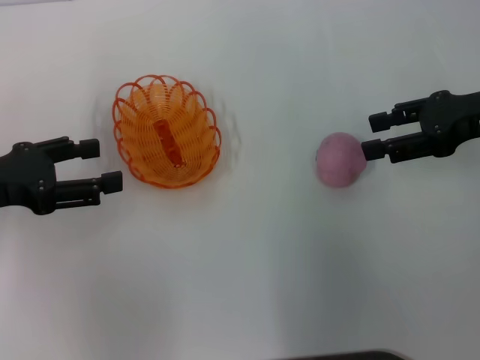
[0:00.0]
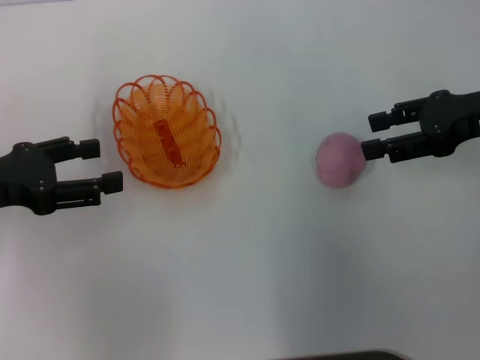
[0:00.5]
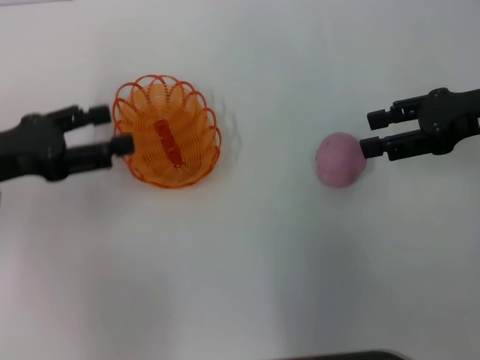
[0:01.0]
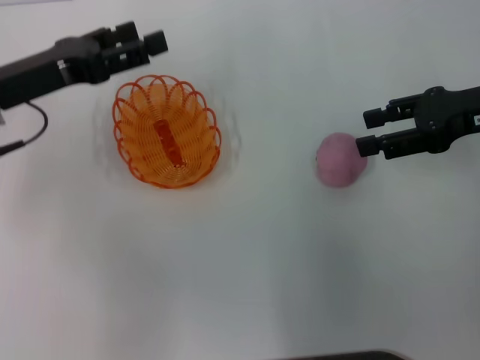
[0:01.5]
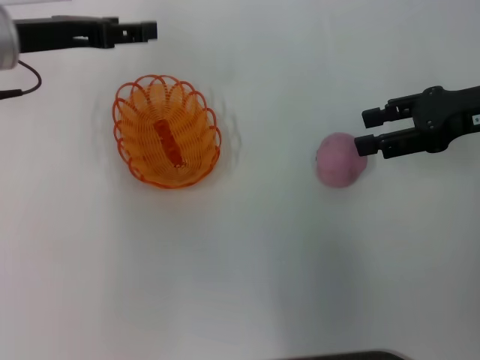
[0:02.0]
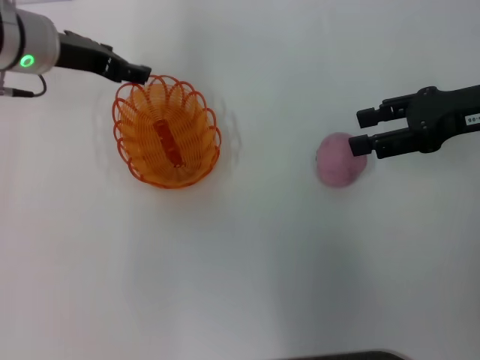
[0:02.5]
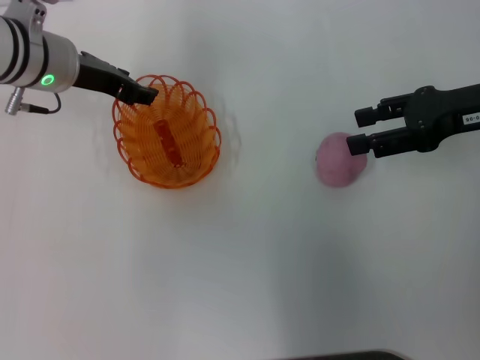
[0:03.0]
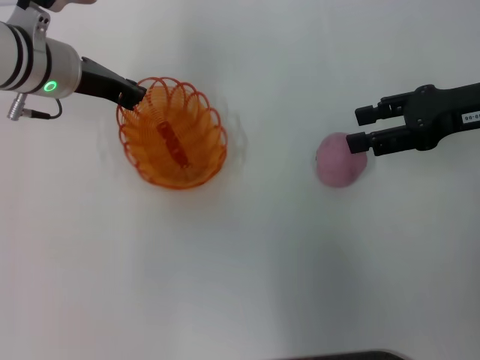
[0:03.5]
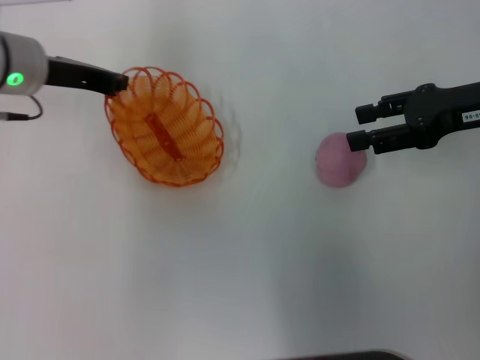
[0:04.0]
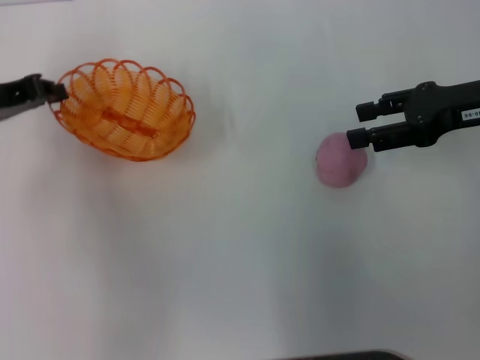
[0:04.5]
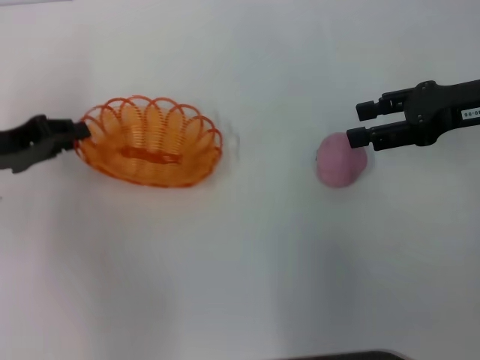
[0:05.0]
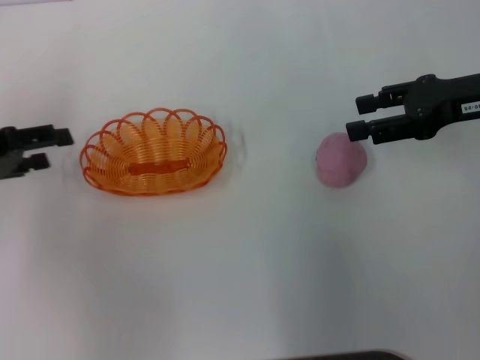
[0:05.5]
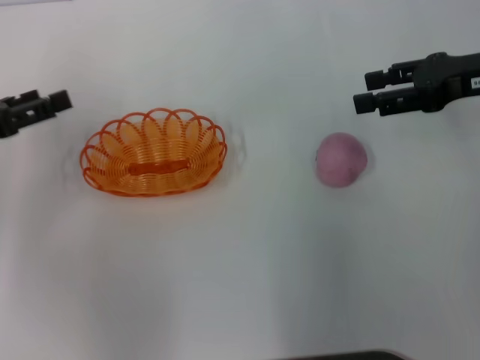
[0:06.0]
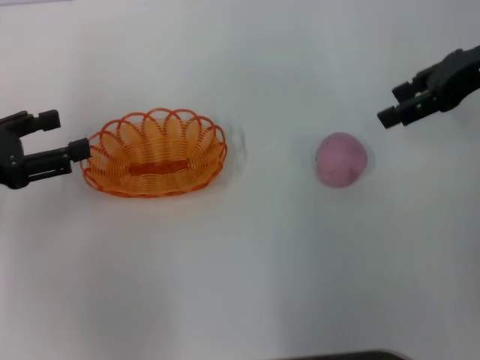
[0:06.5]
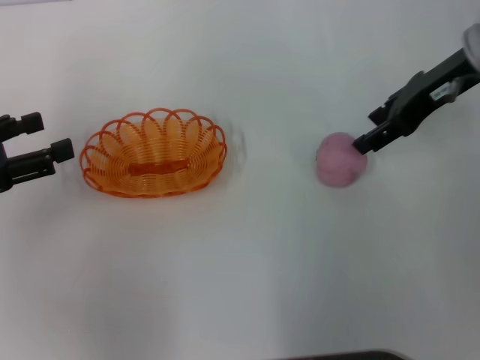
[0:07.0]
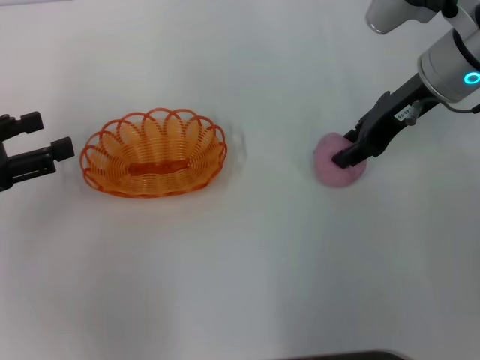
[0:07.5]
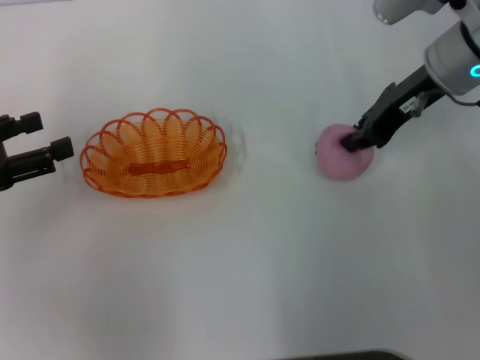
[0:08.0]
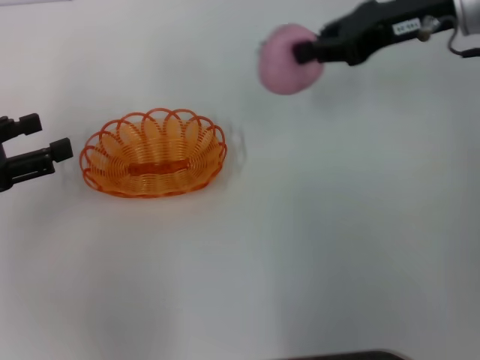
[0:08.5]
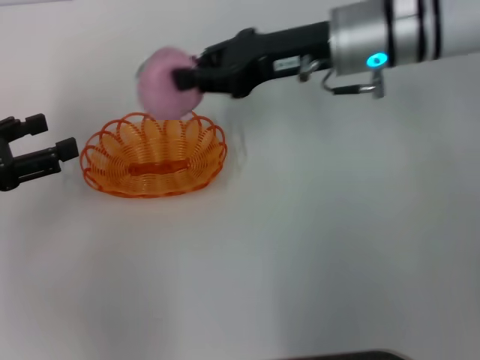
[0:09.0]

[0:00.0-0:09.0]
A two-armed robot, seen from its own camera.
Step, 0:00.0 to 0:04.0: Pick up the basket with the left gripper.
Step, 0:04.5 to 0:05.5: Place the basket in the center of view with the left gripper.
Step, 0:06.0 to 0:08.5: Pick up the peach with the right gripper.
0:00.0 to 0:02.0: The left gripper travels forward and to the right by about 15 cm.
0:02.0 to 0:04.5: The left gripper goes some 5 cm to the left, and closes up.
0:04.5 to 0:07.0: The left gripper moves backward, roughly 10 cm, and opens; the right gripper moves to the left, some 5 cm.
0:07.0 to 0:09.0: The right gripper shifts about 10 cm to the left, and closes its fingers.

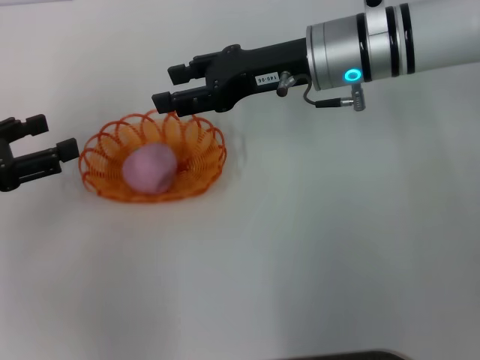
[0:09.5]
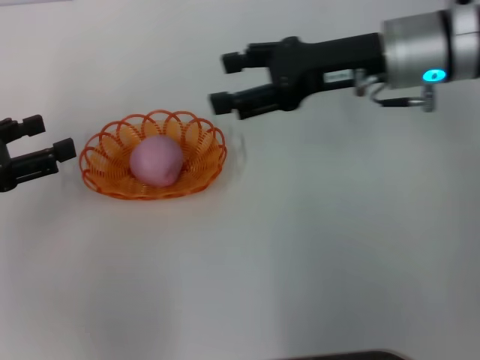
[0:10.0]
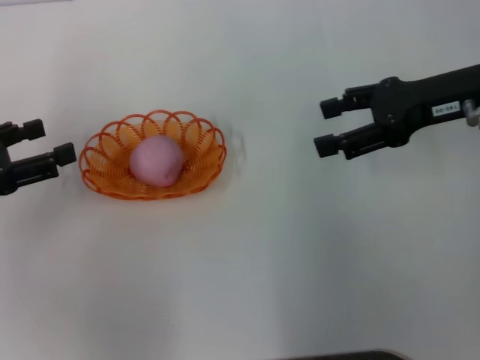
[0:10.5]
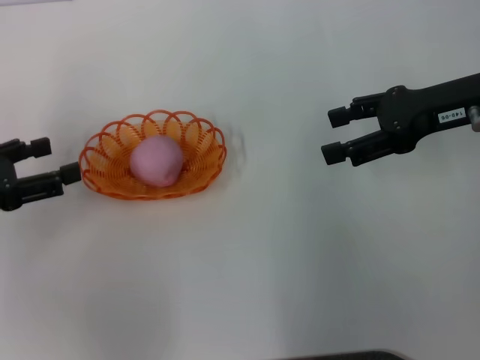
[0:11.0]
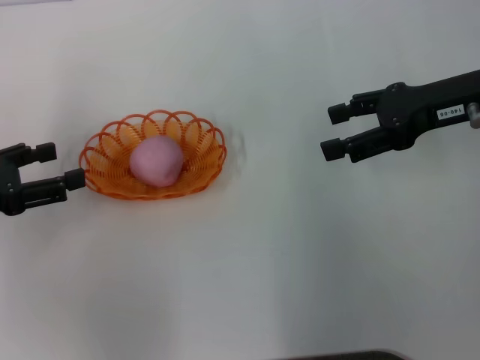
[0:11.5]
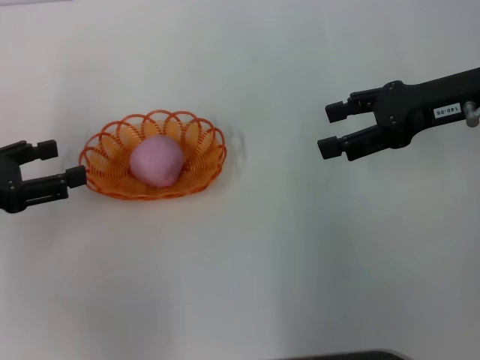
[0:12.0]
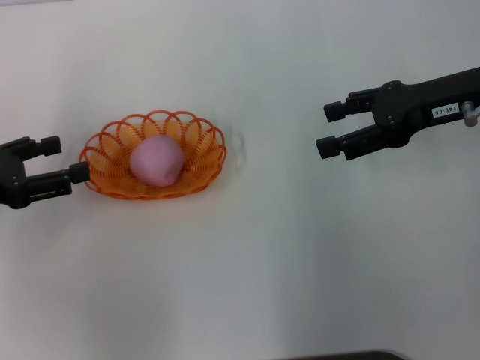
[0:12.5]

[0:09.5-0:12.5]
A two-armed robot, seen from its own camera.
0:09.5 to 0:11.0: The right gripper goes approximately 15 cm to the right, and opens its fingers.
0:11.0 to 0:12.5: Neither gripper changes place.
